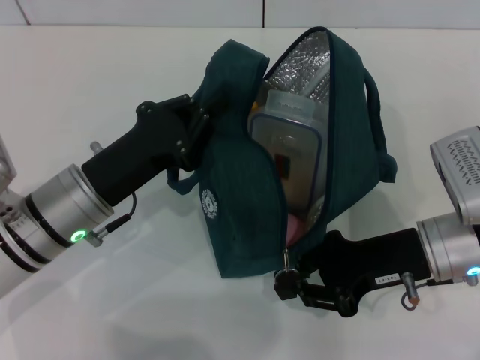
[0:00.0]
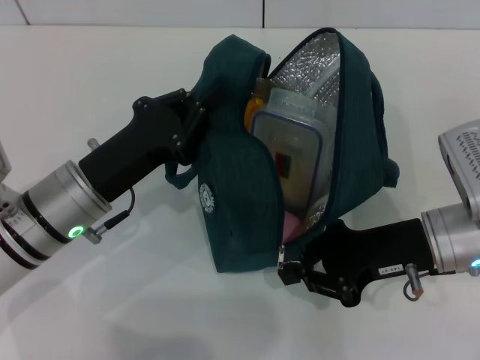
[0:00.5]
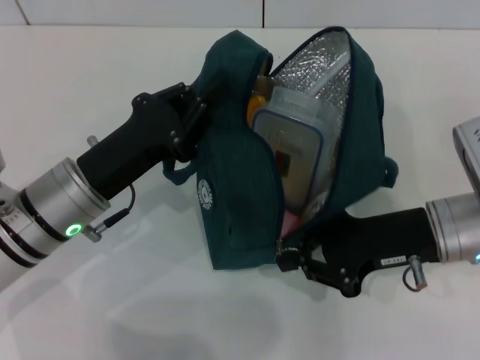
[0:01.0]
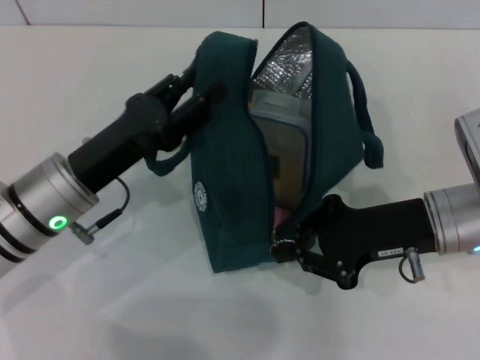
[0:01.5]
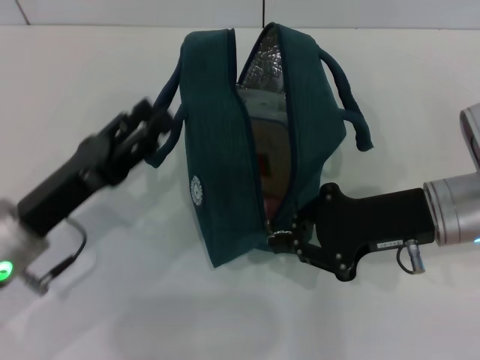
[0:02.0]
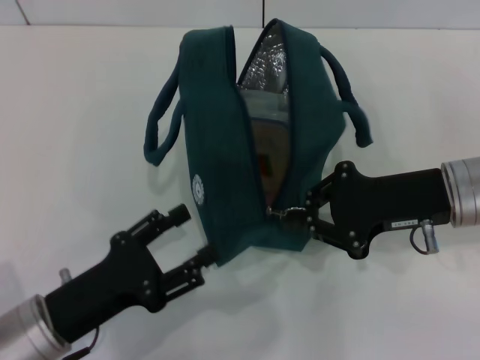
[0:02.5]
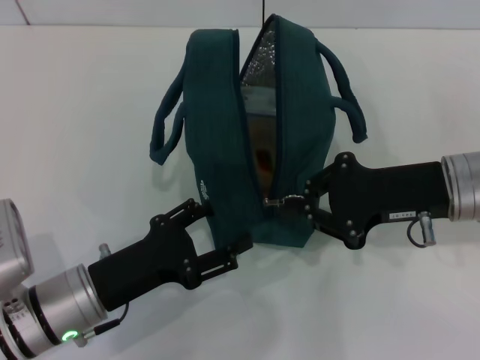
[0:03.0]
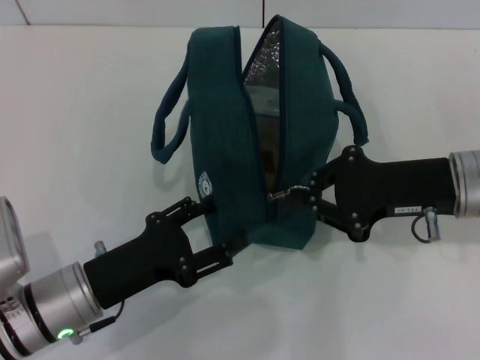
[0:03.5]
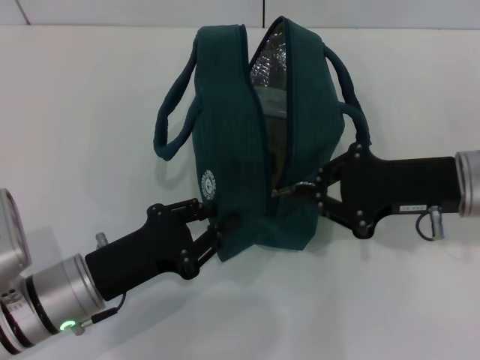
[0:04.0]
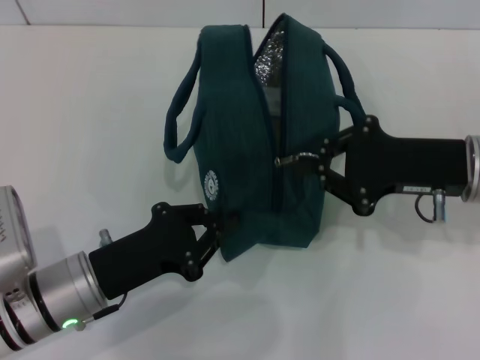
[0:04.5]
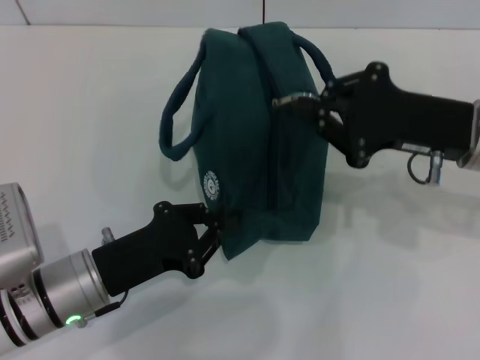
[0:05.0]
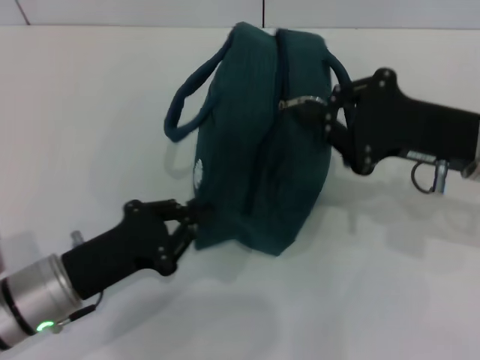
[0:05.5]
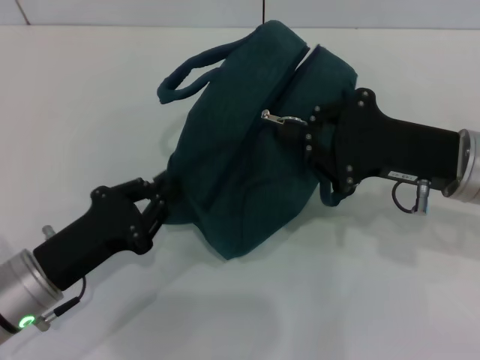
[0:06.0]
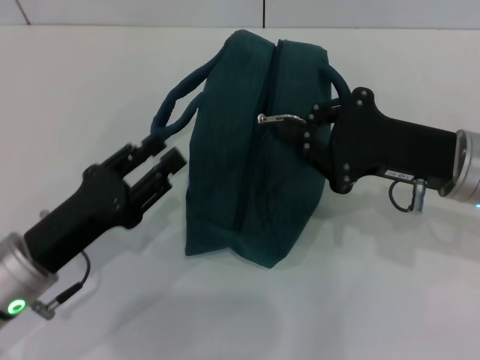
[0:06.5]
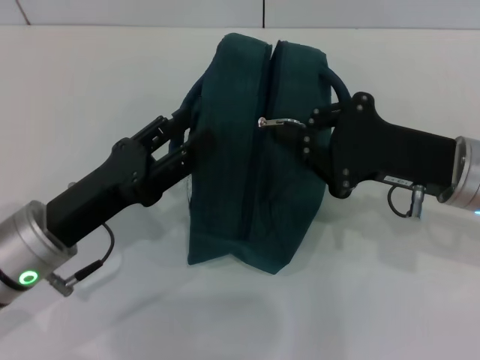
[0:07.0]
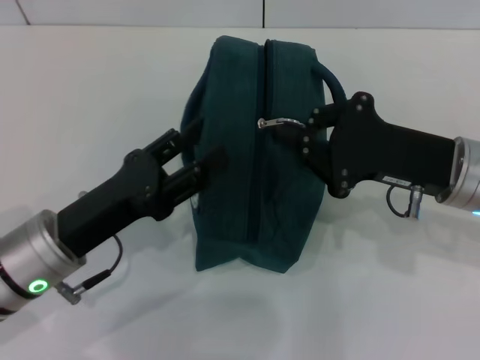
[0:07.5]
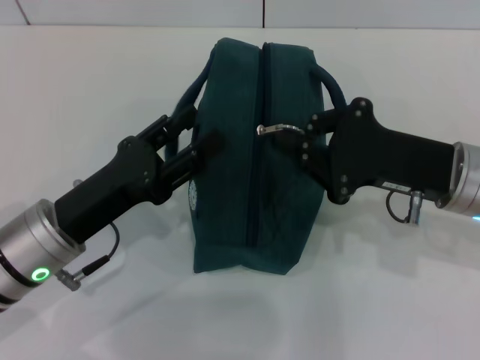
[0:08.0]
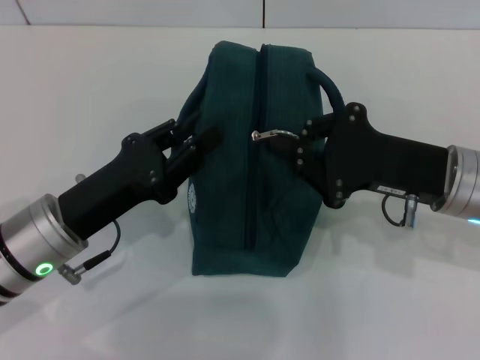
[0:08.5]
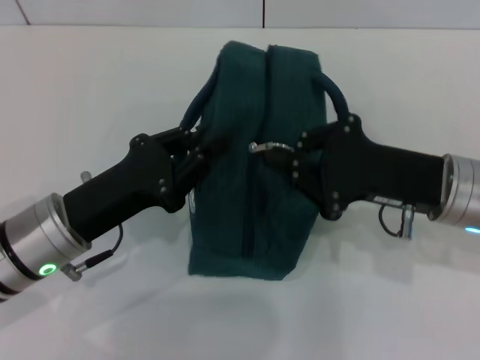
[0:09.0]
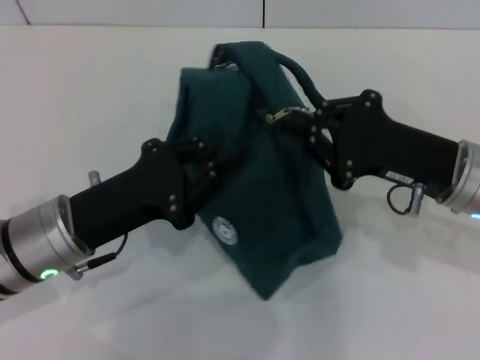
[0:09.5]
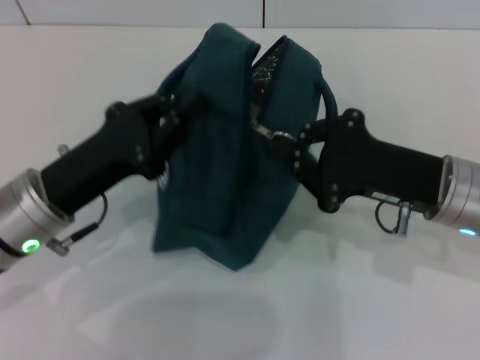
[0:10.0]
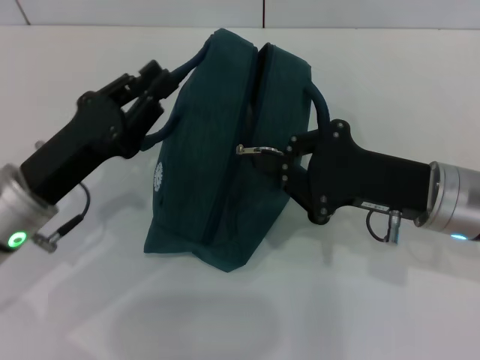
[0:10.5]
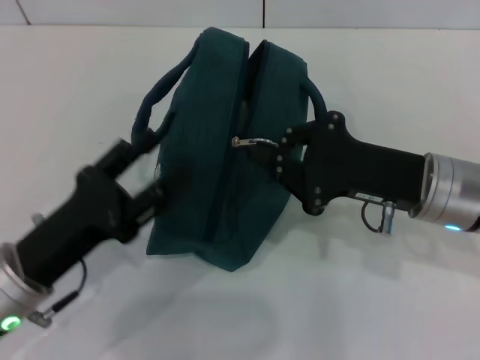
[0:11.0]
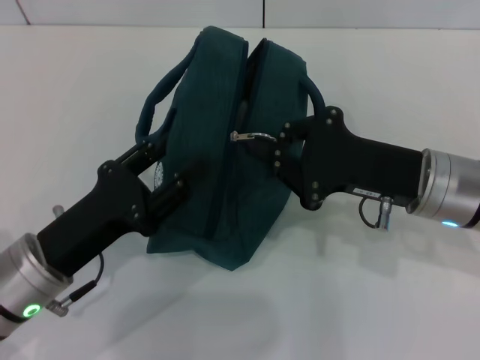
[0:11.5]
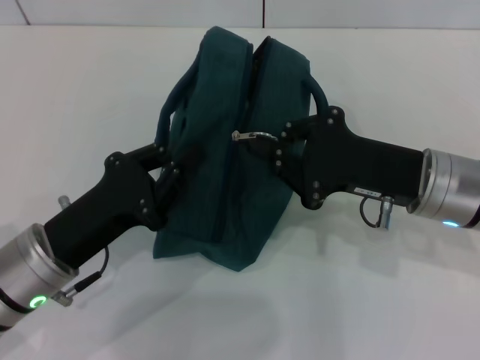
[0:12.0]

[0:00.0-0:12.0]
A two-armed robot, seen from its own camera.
0:00.0 to 0:02.0: The left gripper changes place by roughly 5 cm, and opens its fingers.
0:02.0 to 0:04.0: The left gripper shifts by some 5 cm, and closes up.
0:04.0 to 0:06.0: The left gripper closes.
0:06.0 to 0:08.0: The left gripper changes place by about 5 cm, and opens its fingers.
0:08.0 to 0:10.0: The left gripper closes its fingers.
0:10.0 to 0:12.0: The left gripper opens, then closes again.

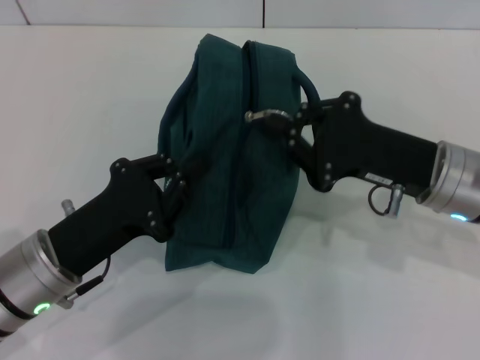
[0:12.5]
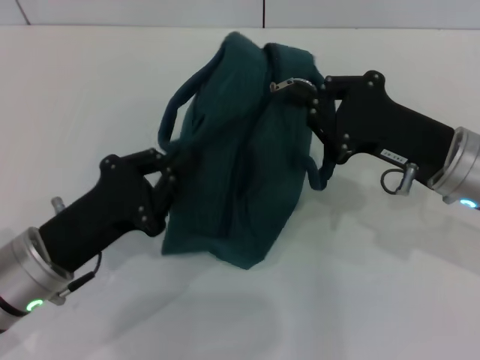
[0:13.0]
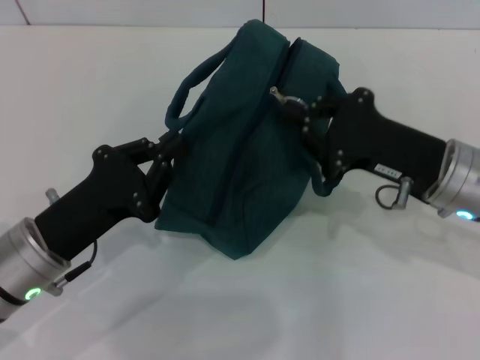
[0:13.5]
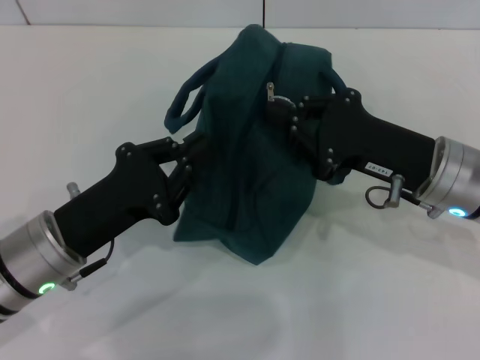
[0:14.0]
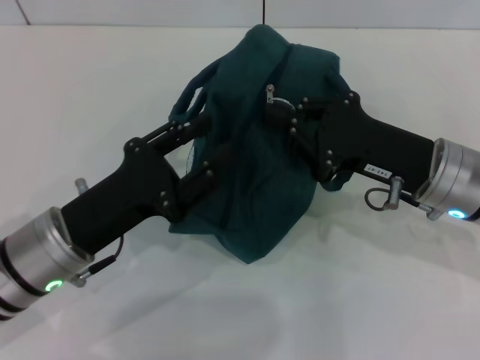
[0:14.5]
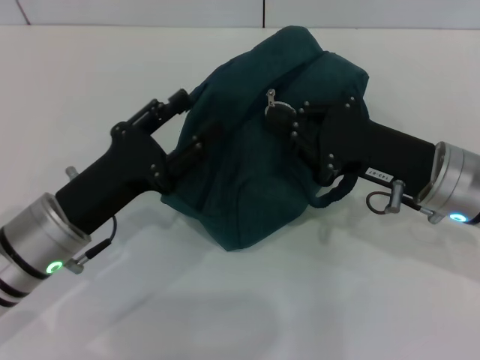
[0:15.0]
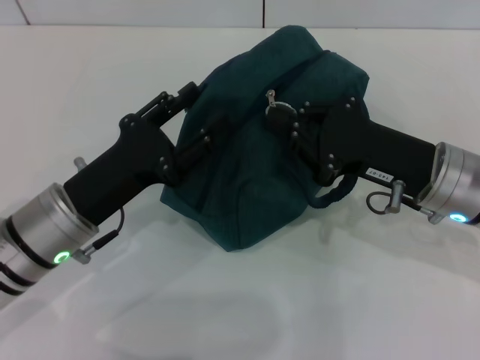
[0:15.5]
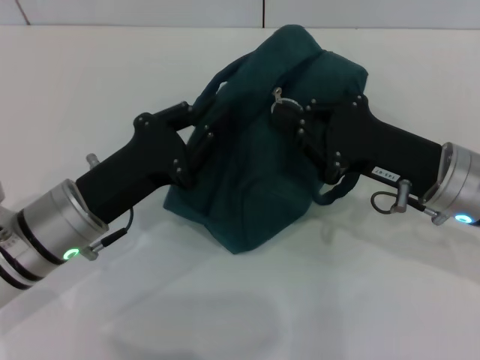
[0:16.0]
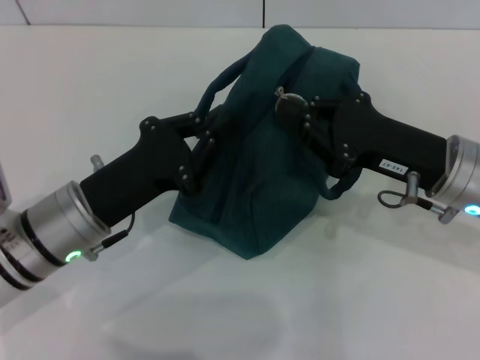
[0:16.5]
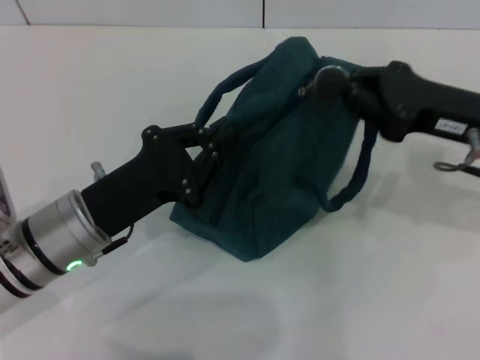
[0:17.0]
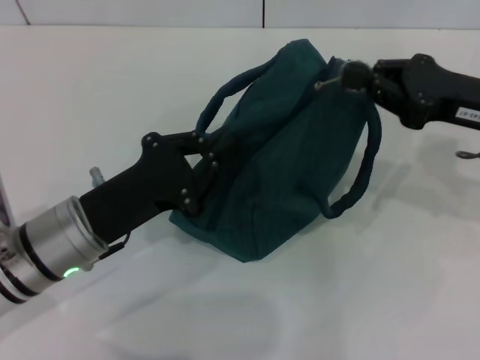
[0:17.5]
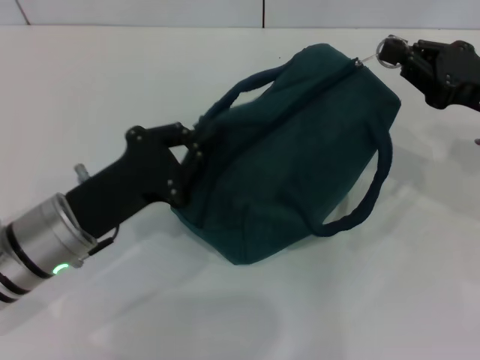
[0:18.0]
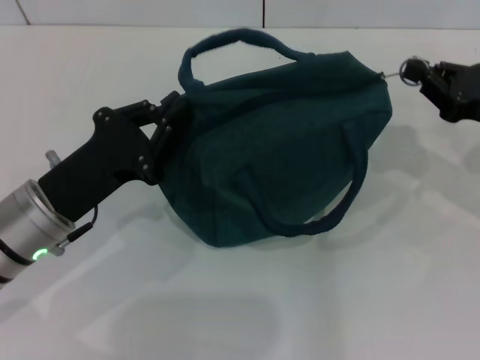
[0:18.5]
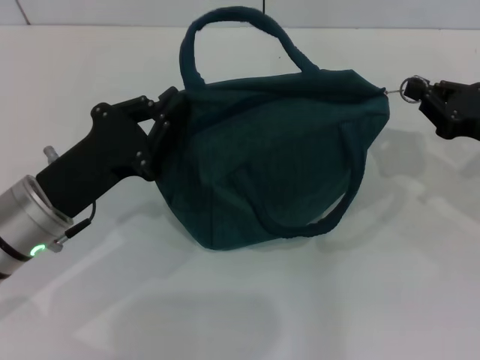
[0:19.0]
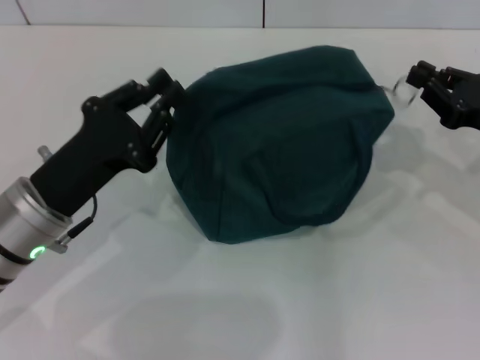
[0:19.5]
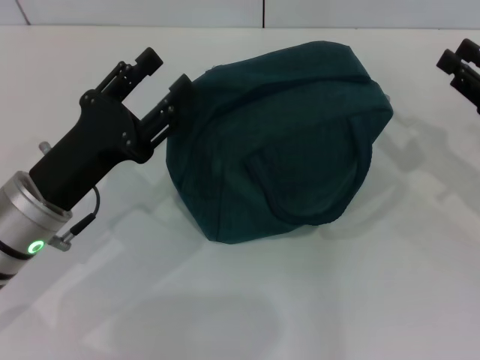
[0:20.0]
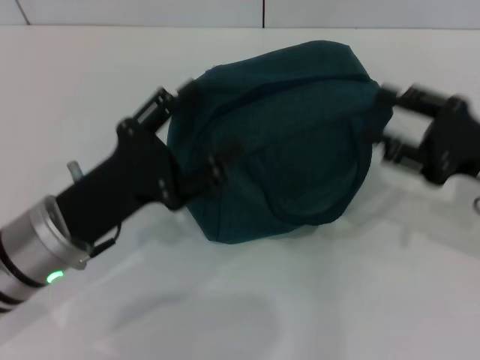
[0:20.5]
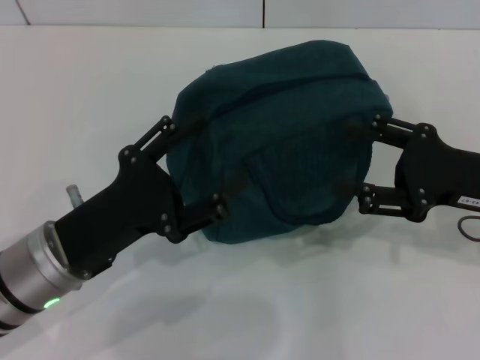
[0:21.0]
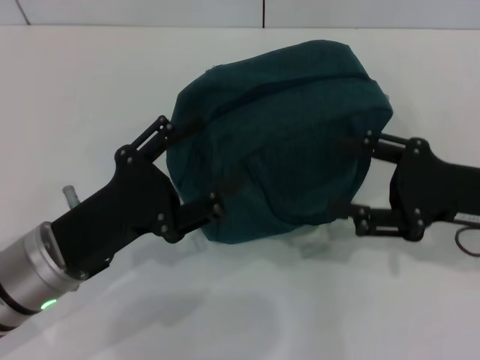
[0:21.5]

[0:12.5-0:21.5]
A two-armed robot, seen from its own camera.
Step, 0:12.5 to 0:19.0: Hold the lunch bag with your left hand.
0:12.5 to 0:14.5: The grippers move only a little.
0:14.5 to 0:17.0: The right gripper travels to the right by some 5 cm; the left gripper opens, then closes once more.
0:17.0 to 0:19.5: The right gripper is displaced to the right by roughly 5 cm.
0:19.5 to 0:21.5: The right gripper ends up about 5 cm from where it was, and opens up, while the left gripper opens.
